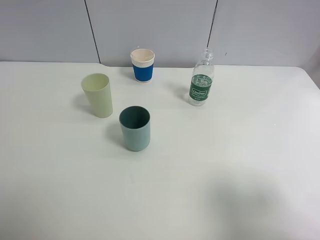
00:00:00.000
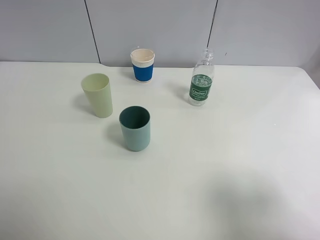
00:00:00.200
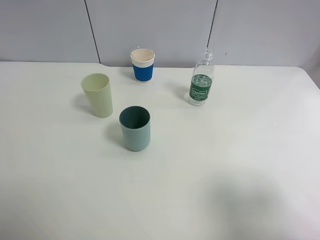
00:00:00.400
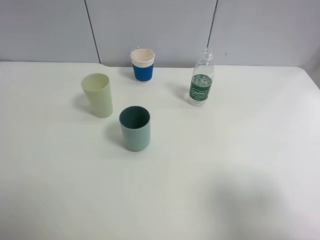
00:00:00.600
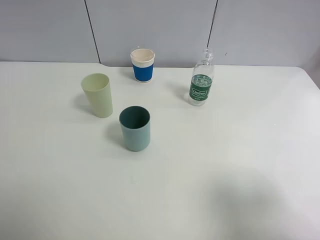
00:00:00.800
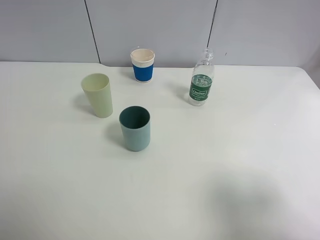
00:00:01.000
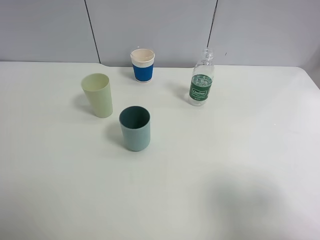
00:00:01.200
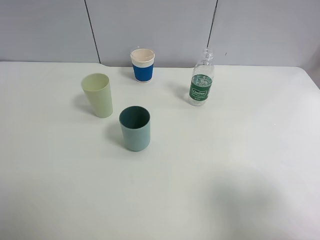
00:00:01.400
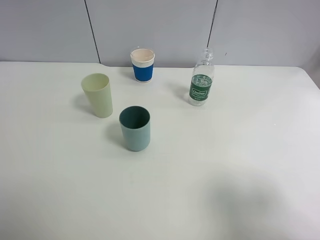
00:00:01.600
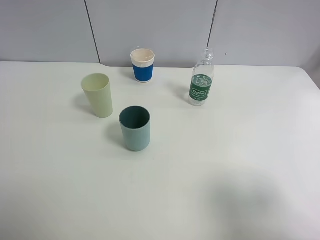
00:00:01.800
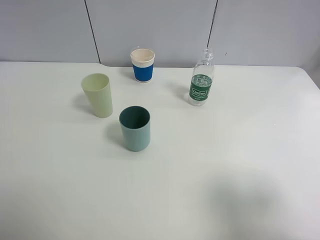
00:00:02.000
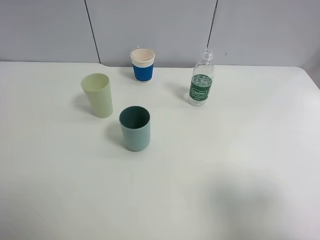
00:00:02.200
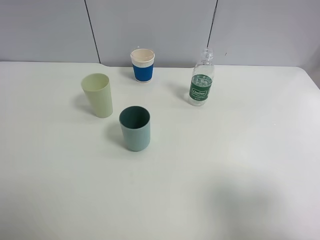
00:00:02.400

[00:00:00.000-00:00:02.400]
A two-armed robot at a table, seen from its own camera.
Task of the whole recording: use a clamp to hold the bottle of the drink, pour the beverage into a random cup, then clamp the cup containing the drink and pour the drink into another random cup.
00:00:01.200 to 00:00:02.400: Neither gripper changes place.
